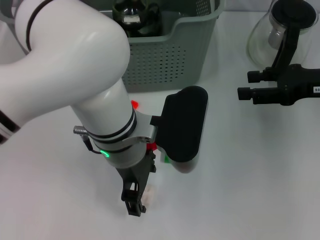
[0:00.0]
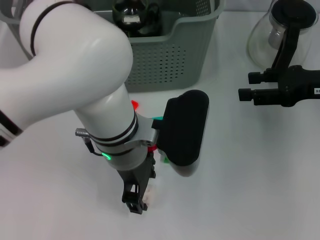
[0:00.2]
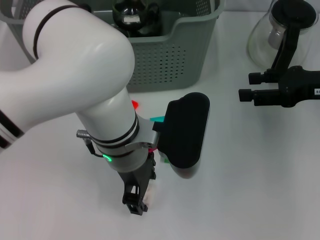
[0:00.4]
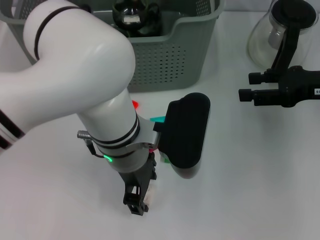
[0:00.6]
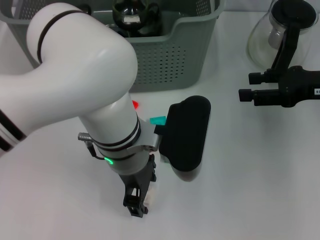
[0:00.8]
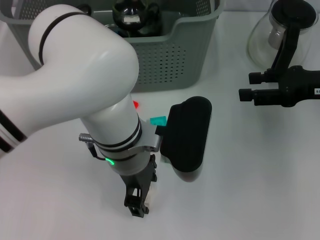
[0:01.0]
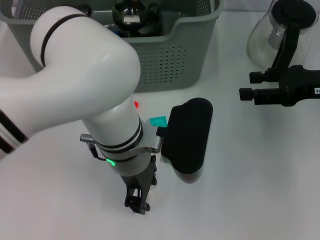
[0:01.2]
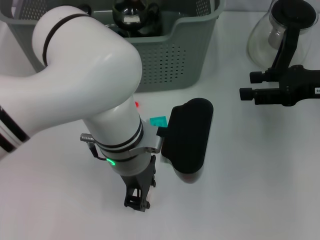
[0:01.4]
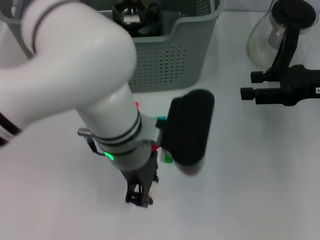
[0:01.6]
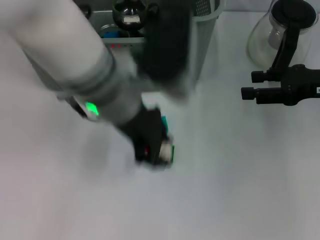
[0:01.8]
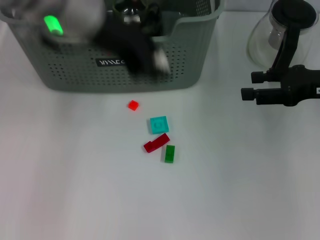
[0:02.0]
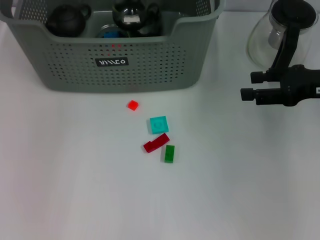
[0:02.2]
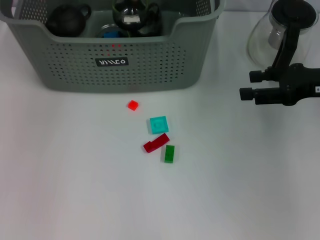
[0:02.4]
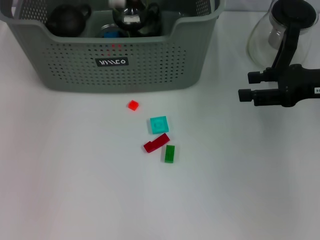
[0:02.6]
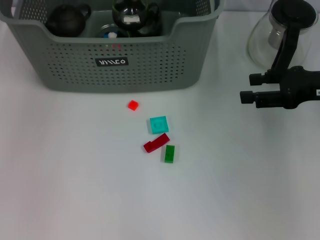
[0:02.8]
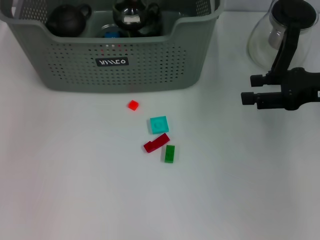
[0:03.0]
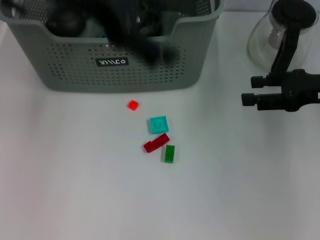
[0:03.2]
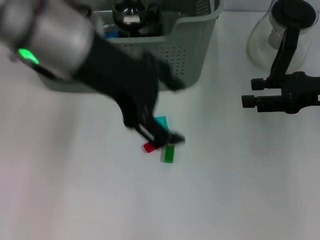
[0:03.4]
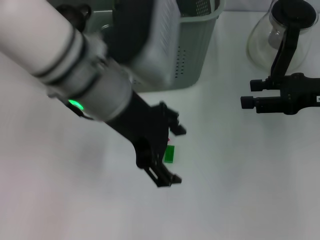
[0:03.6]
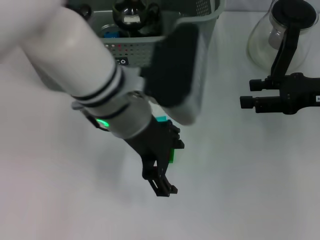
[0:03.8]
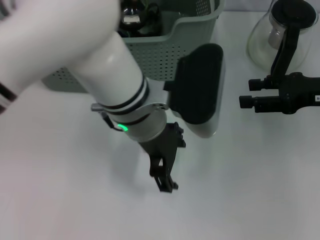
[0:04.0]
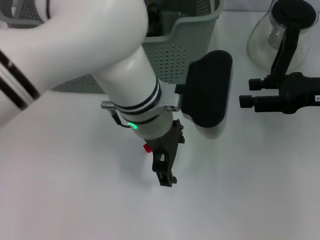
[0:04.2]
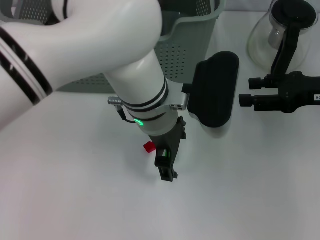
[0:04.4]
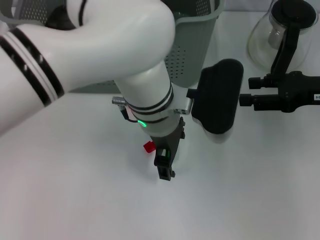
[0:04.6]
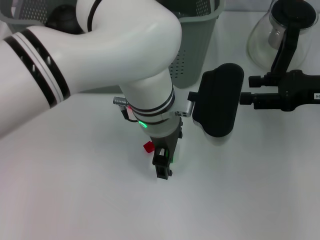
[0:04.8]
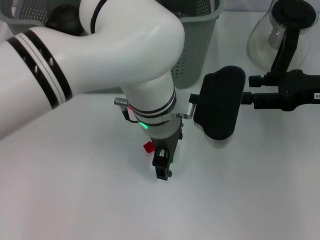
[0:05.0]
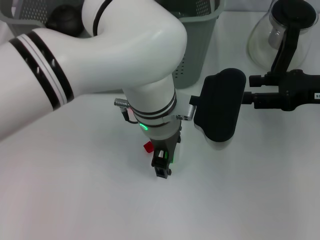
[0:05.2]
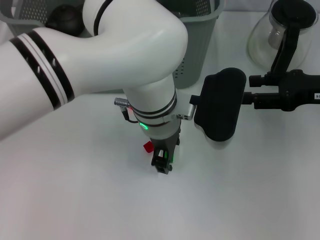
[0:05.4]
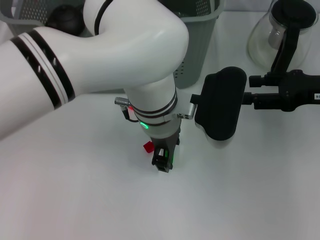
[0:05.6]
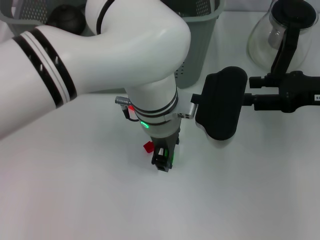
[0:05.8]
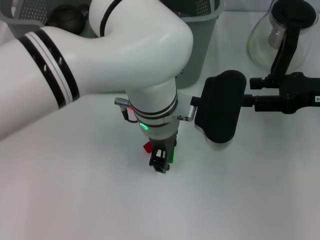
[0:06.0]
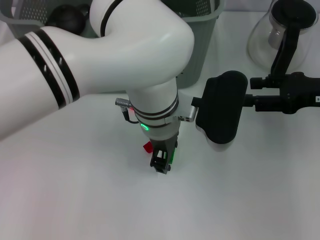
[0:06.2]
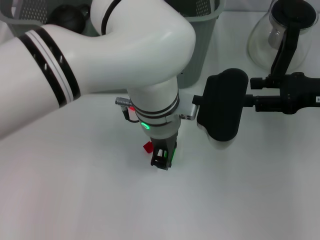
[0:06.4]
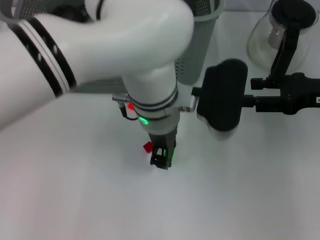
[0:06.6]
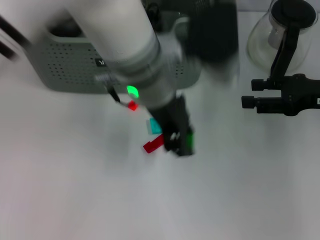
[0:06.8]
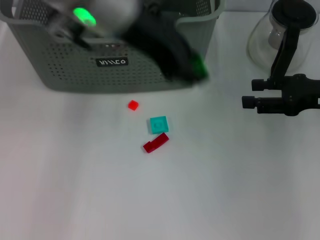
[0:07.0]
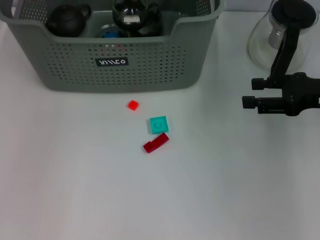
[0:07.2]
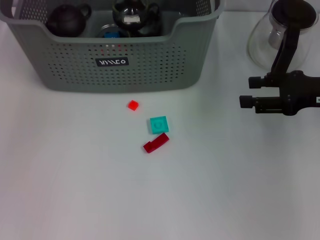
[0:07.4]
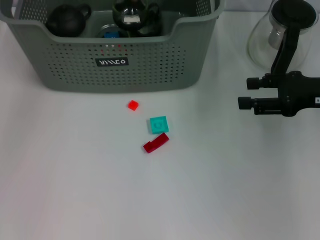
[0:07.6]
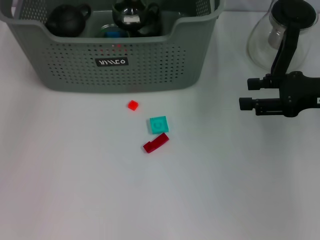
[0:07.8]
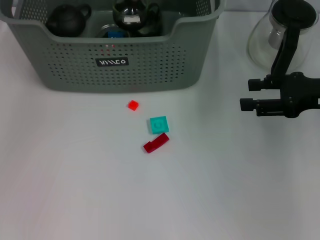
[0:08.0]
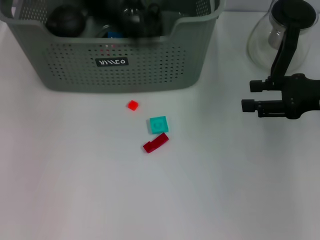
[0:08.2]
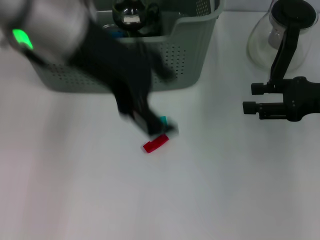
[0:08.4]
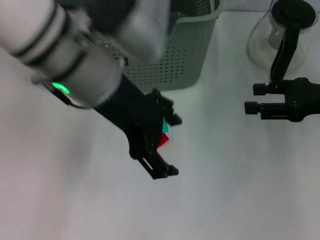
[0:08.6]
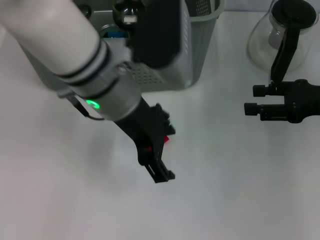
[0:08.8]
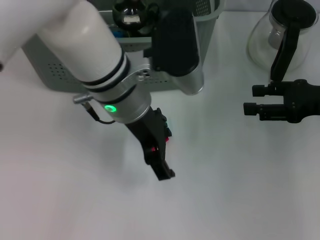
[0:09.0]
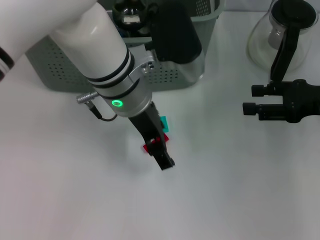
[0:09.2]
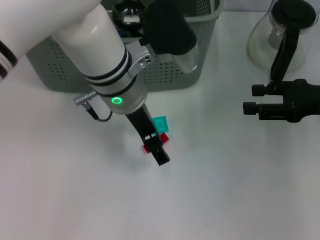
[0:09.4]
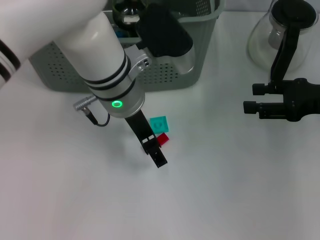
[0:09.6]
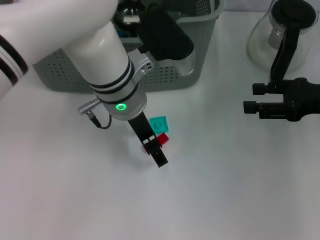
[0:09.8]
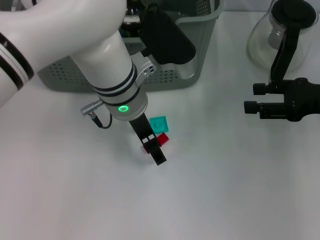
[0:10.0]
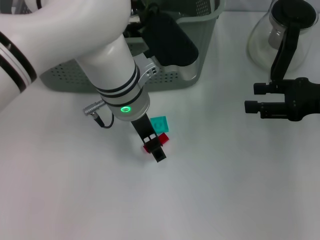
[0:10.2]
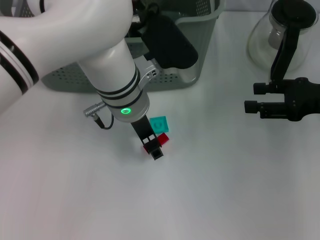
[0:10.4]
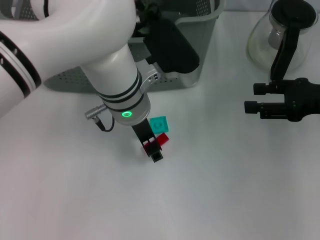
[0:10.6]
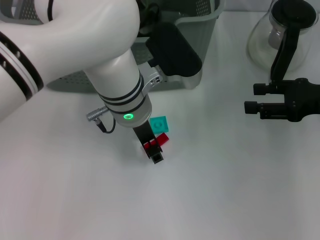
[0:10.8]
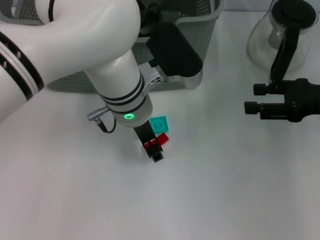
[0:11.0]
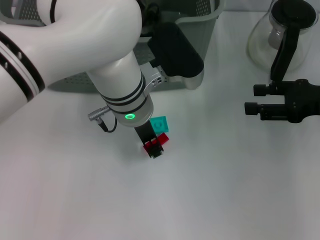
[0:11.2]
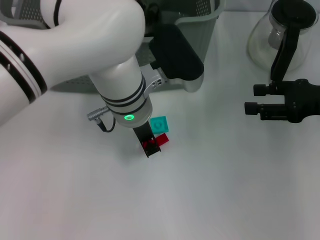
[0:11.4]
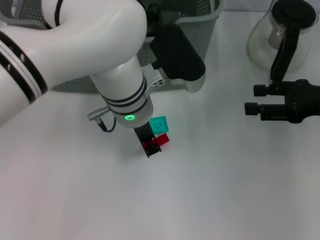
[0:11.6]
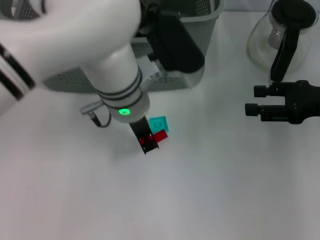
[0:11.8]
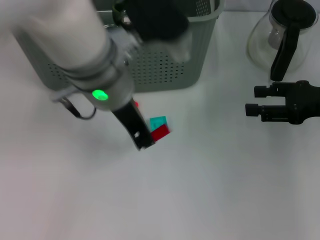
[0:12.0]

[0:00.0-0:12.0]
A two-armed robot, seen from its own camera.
Task of the whole recording: pick up the teacup on the table and place it into the storage bin, pick up the block on the table and place it into the storage bin.
Step, 0:01.6 to 0:02.8: Place the white block in the storage box with left gripper.
Step, 0:03.0 to 0:06.2: Grasp the green block with left gripper.
Step, 0:06.4 to 0:07.8: Place the green block in the storage box with left gripper.
Step, 0:08.0 to 0:11.4: Grasp the red block with left gripper.
0:00.0 to 0:01.6: The left gripper closes up.
0:01.6 to 0:03.0: The left gripper moves upward, to the left and forward, about 25 cm.
0:03.0 to 0:04.4: The left gripper moves downward and to the right, about 25 cm.
0:04.4 to 0:06.0: The left gripper closes its fingers.
0:06.0 to 0:07.6: The left gripper is displaced to the left, upward and forward by roughly 30 cm.
0:07.6 to 0:09.0: The left gripper heads to the right, downward and backward, covering approximately 25 cm, and opens up.
0:10.4 to 0:12.0: The left gripper travels upward by about 10 cm, and closes.

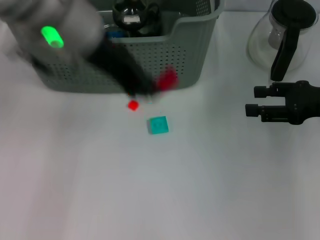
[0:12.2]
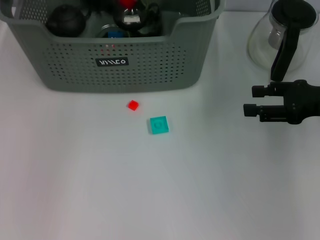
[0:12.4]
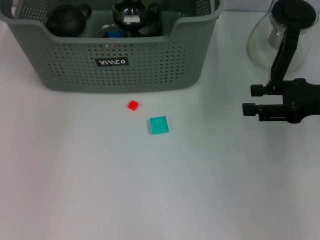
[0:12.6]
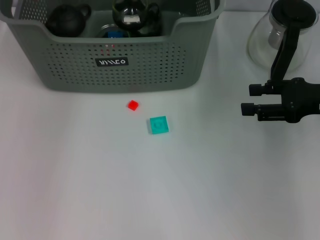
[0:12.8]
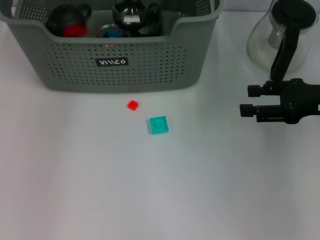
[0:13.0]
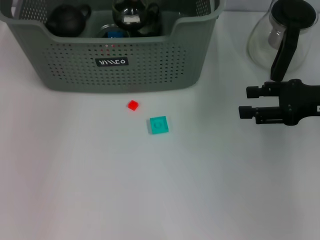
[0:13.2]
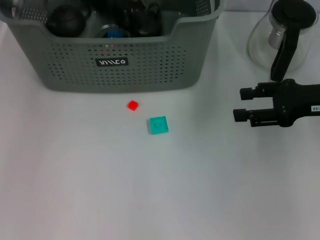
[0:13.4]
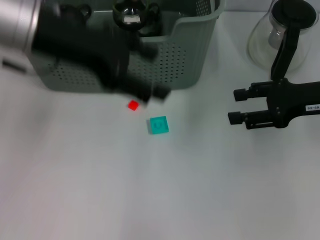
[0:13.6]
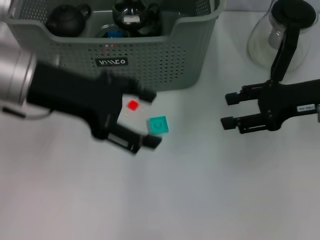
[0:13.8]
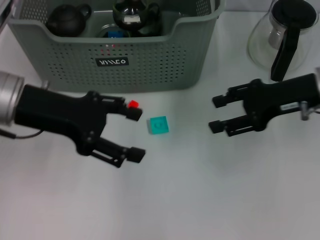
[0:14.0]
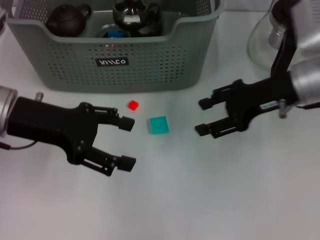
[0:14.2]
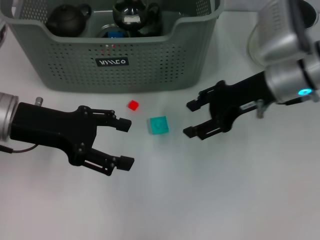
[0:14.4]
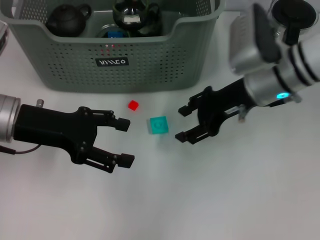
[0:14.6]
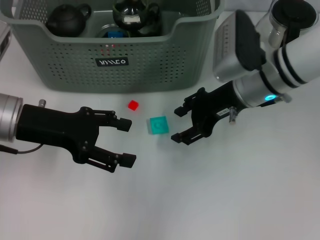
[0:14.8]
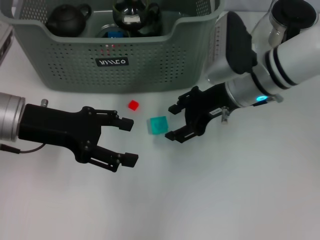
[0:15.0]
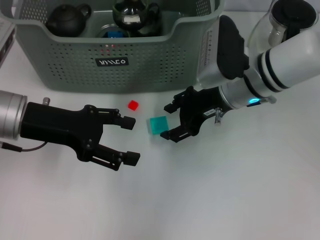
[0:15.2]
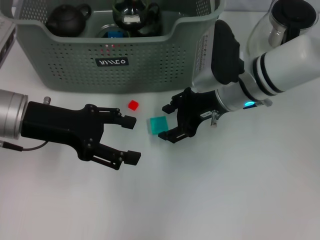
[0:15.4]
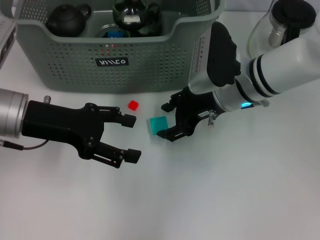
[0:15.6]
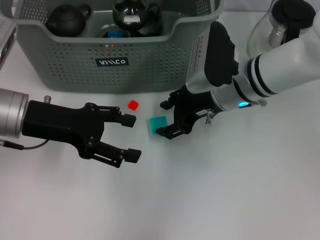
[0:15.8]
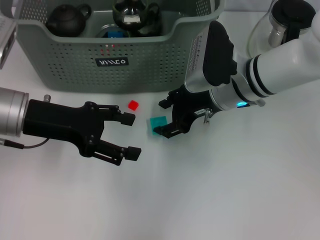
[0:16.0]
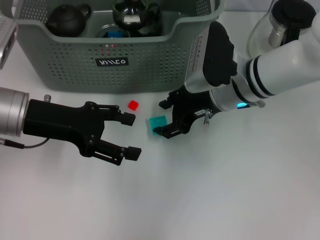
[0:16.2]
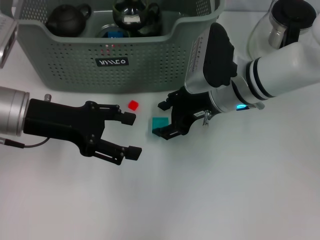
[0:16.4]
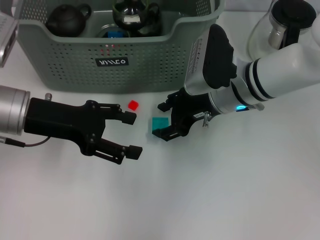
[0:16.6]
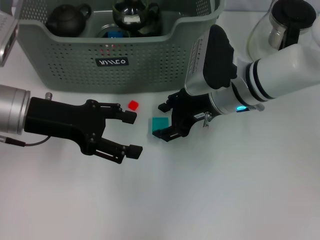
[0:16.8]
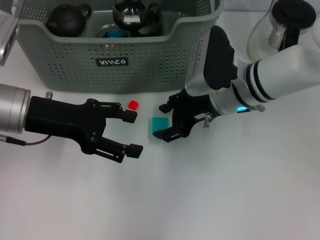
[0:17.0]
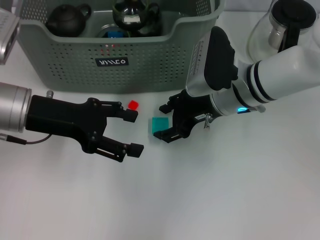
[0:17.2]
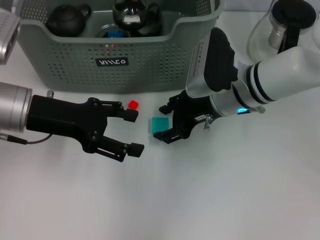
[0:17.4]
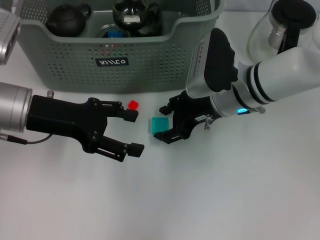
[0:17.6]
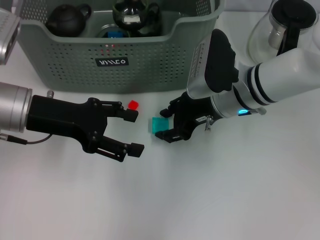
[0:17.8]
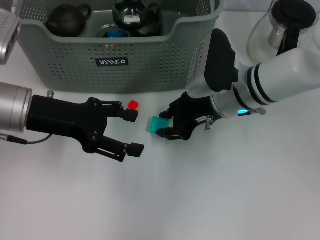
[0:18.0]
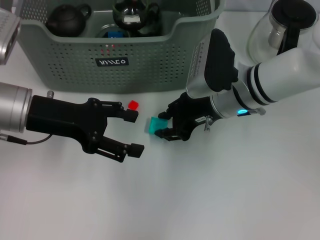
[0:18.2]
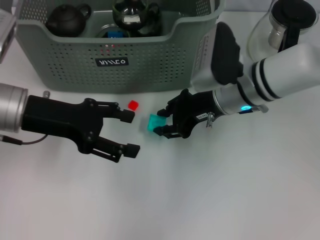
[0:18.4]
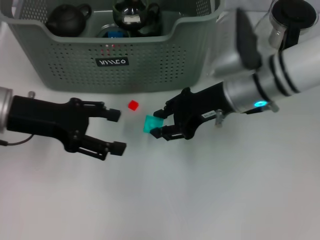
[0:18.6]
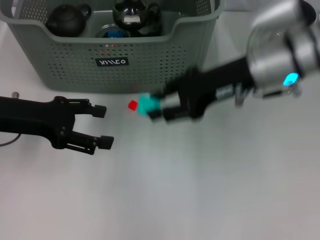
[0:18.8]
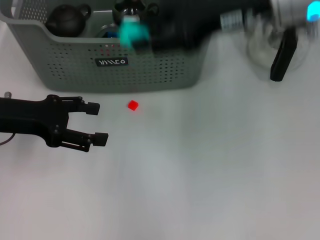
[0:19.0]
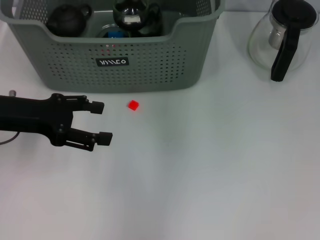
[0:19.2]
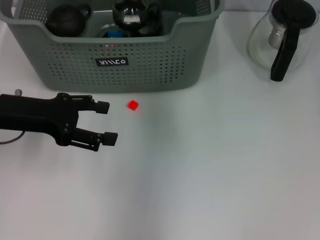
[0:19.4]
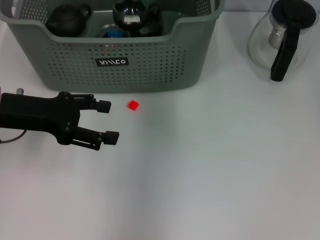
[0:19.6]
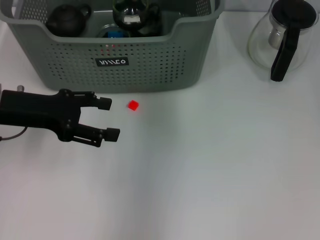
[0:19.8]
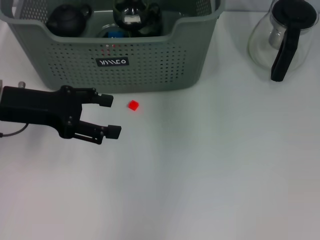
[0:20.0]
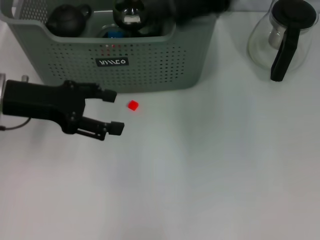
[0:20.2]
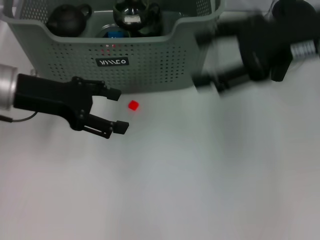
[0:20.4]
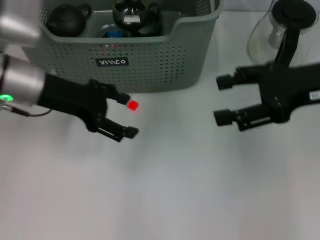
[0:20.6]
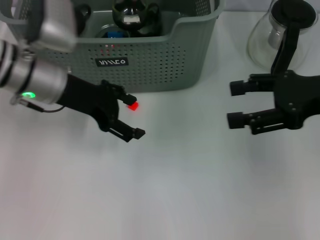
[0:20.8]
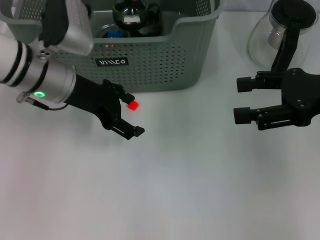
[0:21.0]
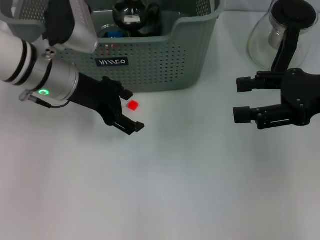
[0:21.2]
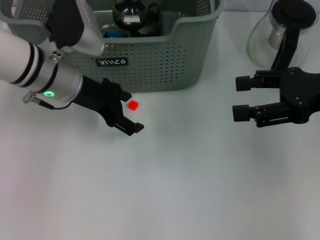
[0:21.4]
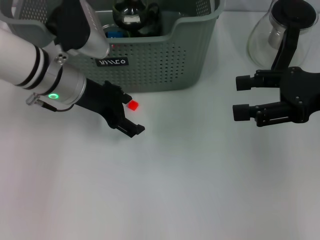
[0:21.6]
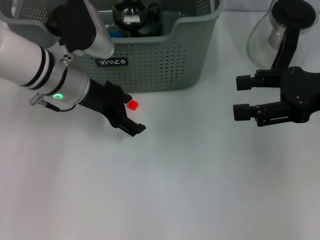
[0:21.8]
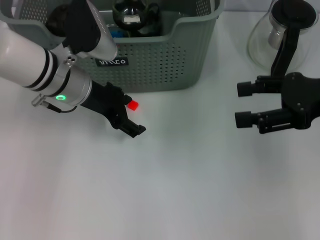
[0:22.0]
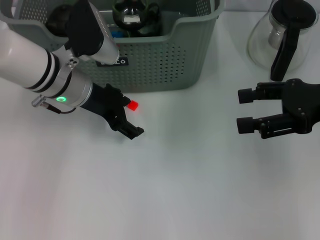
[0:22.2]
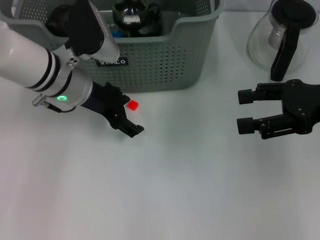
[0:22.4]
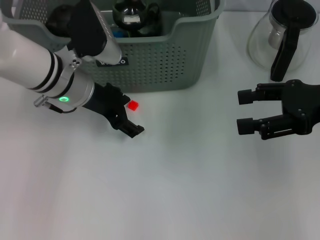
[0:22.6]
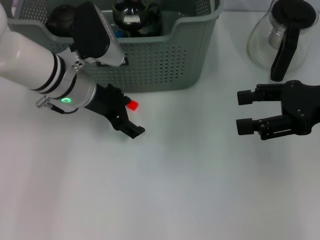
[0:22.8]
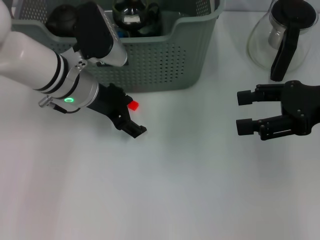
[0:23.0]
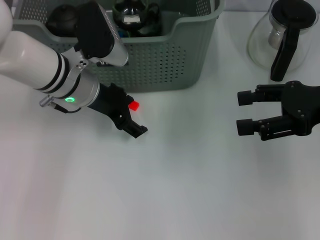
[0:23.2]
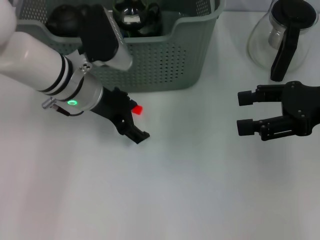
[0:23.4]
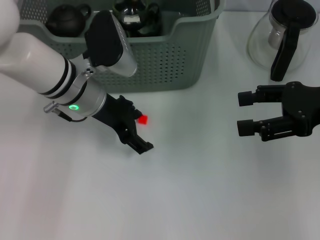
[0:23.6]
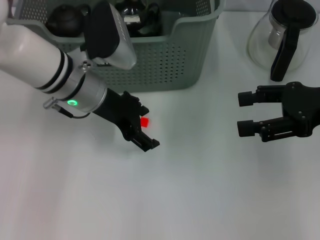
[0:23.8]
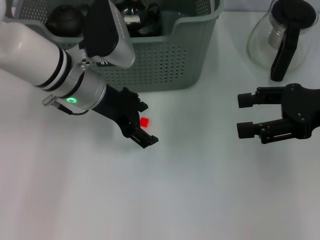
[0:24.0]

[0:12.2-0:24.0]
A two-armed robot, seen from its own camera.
Task of the whole recording: pick up the teacup on the table and place it into the storage bin, pick up the block on the table and place it into the storage bin.
Step, 0:12.2 to 0:13.0: Place the red block in the storage box with left gripper.
Step, 0:13.2 to 0:18.0: Grasp the light blue block with left gripper.
Step, 0:18.2 to 0:19.6: Place the light blue block in the storage box with left gripper.
0:12.2 to 0:13.6: The left gripper is displaced to the left by about 5 cm, reaches approximately 10 cm forward, then returns, and opens its fingers.
0:13.6 to 0:15.2: The left gripper shifts roughly 10 cm downward, while the right gripper heads to the left, covering roughly 15 cm.
0:15.2 to 0:16.6: The grippers make only small movements.
0:16.6 to 0:18.2: Neither gripper changes place.
0:18.2 to 0:19.6: The right gripper goes approximately 25 cm upward and forward.
0:19.6 to 0:21.0: The left gripper goes some 10 cm to the right and forward, while the right gripper heads to the right, backward and downward, covering approximately 25 cm, and opens up.
0:21.0 to 0:24.0: There are only small adjustments of the grippers.
